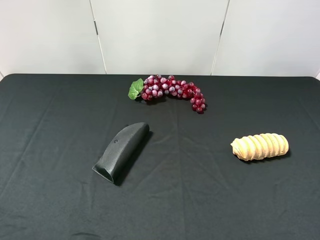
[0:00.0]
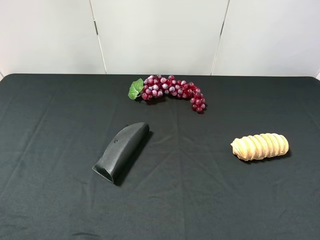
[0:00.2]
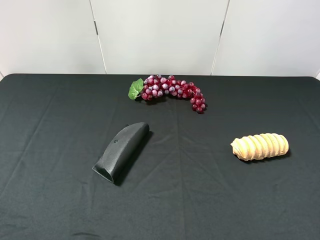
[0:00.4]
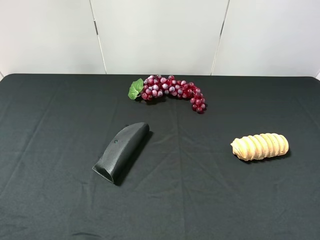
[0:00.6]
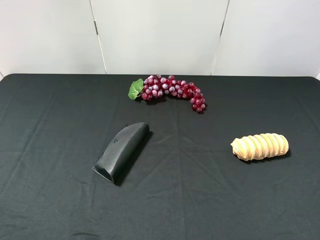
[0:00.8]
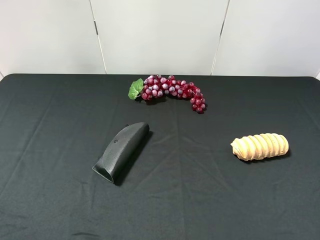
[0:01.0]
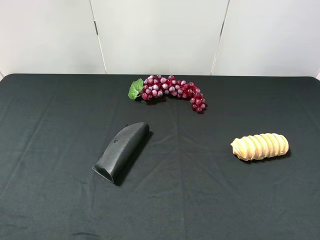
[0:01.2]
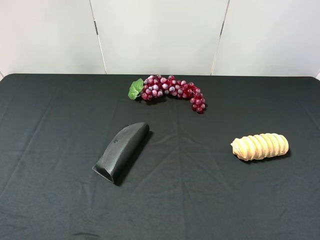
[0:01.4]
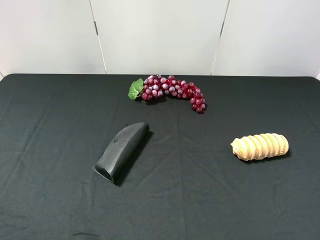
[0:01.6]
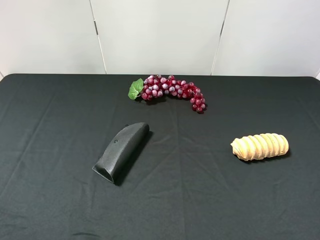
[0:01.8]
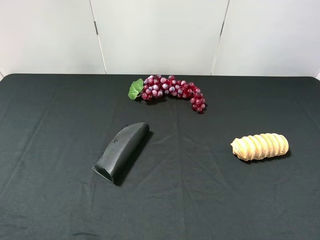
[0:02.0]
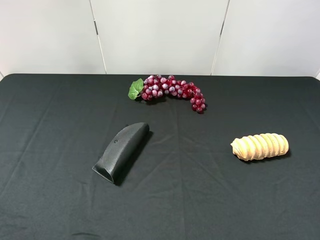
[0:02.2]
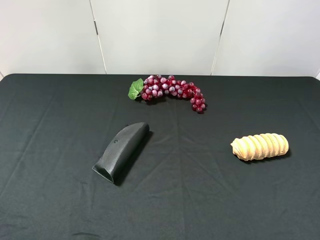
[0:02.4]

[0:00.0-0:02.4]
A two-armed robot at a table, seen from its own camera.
Task of the whole recording: use the left gripper to pick up the item and transfer it from the left gripper to the right gripper.
0:01.2 to 0:02.4: Both grippers stay put.
